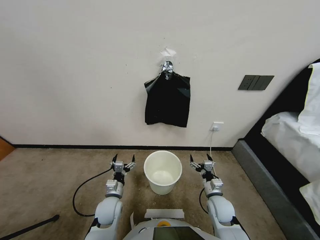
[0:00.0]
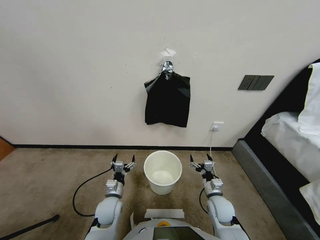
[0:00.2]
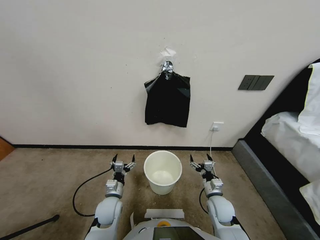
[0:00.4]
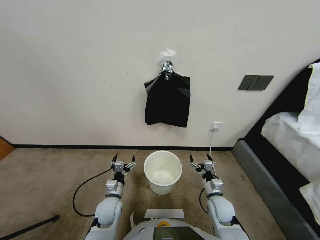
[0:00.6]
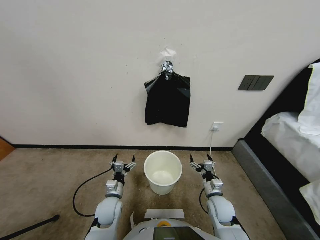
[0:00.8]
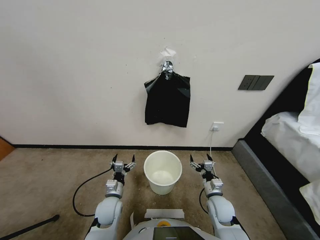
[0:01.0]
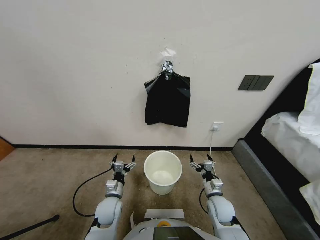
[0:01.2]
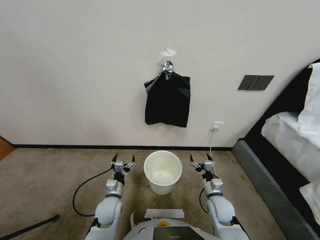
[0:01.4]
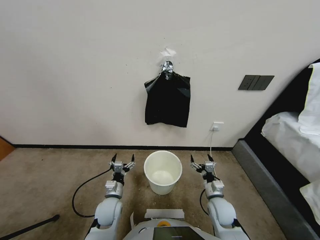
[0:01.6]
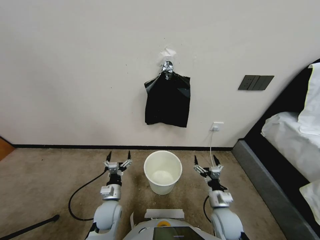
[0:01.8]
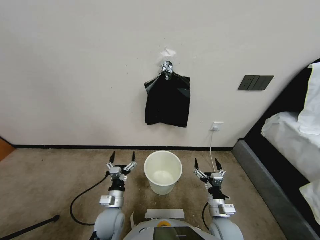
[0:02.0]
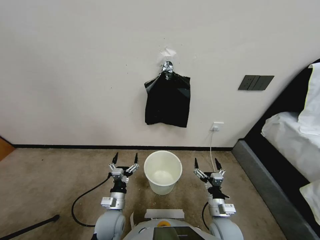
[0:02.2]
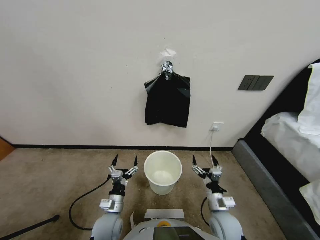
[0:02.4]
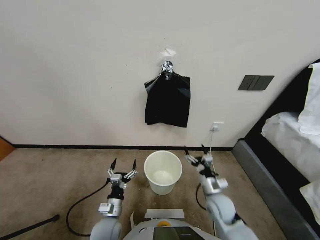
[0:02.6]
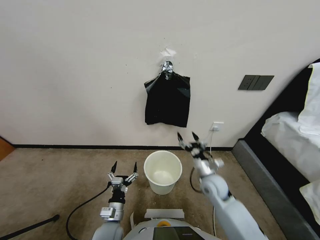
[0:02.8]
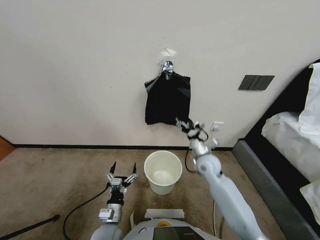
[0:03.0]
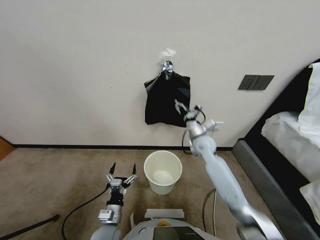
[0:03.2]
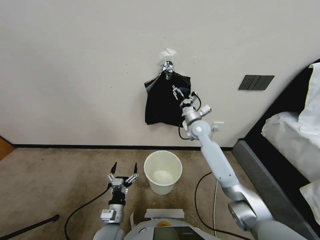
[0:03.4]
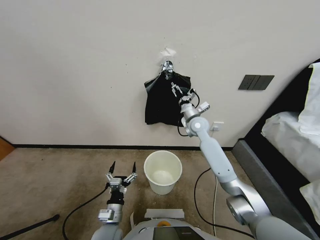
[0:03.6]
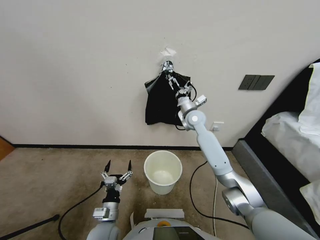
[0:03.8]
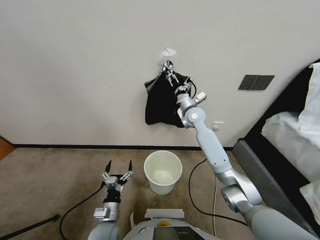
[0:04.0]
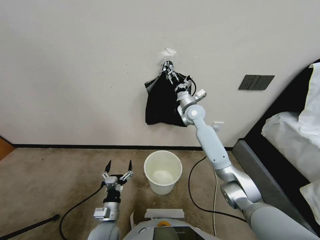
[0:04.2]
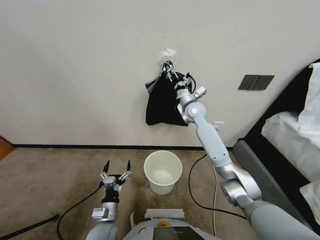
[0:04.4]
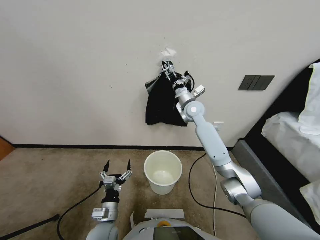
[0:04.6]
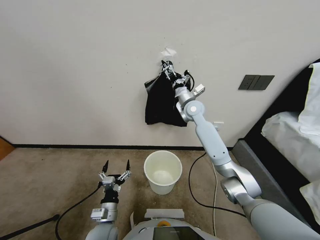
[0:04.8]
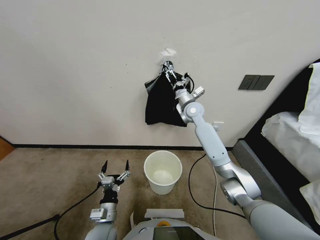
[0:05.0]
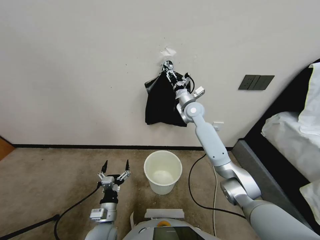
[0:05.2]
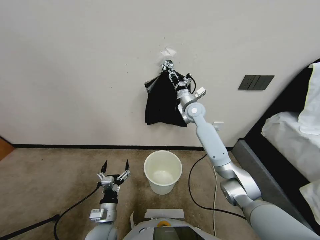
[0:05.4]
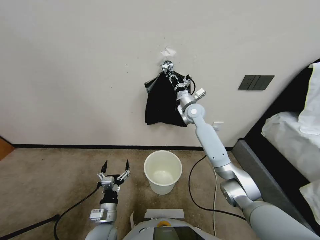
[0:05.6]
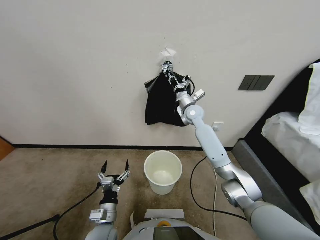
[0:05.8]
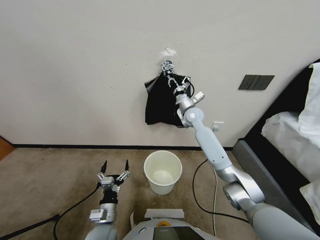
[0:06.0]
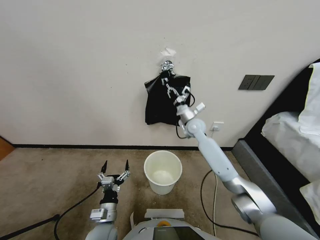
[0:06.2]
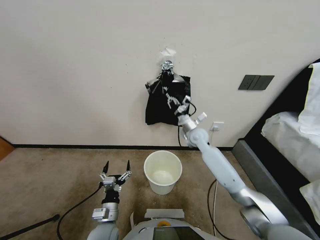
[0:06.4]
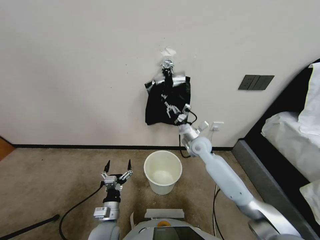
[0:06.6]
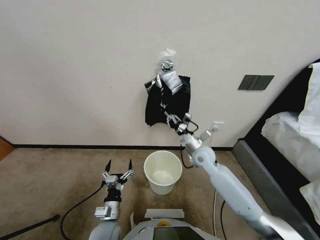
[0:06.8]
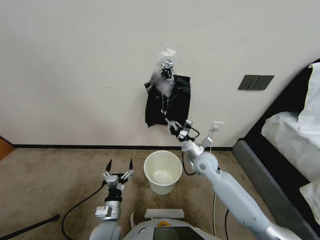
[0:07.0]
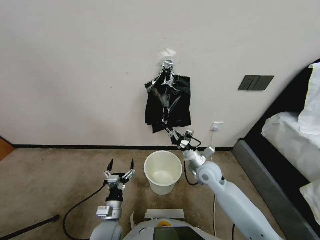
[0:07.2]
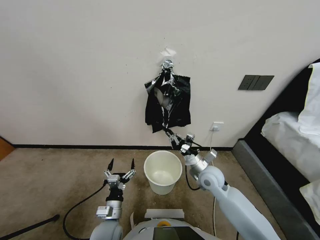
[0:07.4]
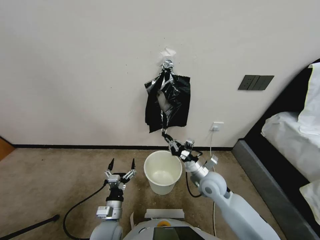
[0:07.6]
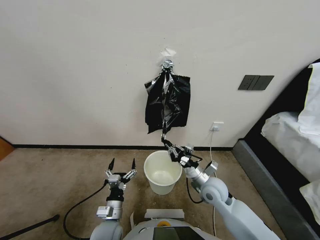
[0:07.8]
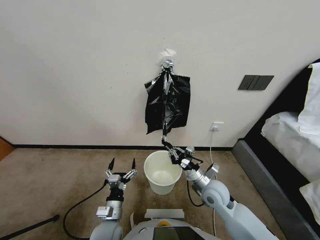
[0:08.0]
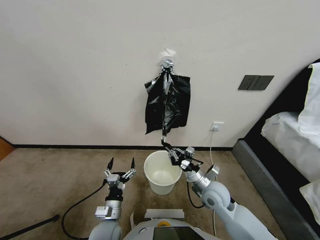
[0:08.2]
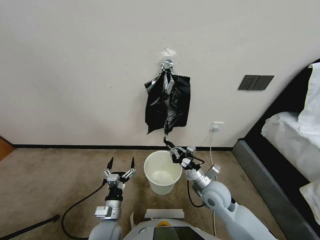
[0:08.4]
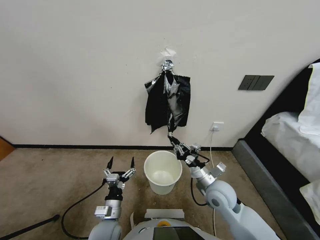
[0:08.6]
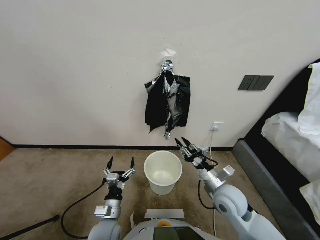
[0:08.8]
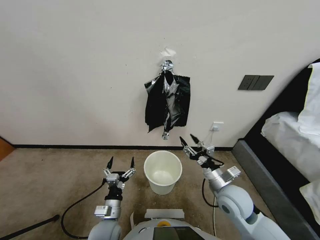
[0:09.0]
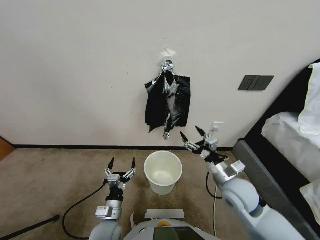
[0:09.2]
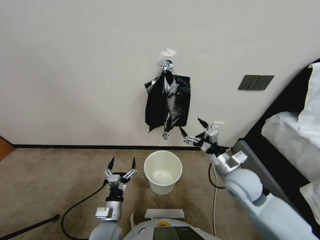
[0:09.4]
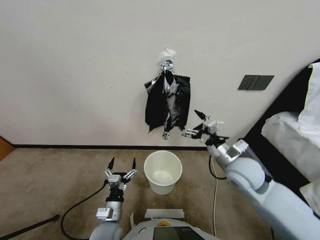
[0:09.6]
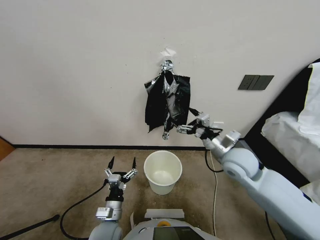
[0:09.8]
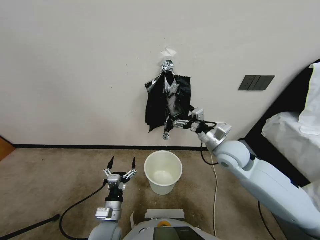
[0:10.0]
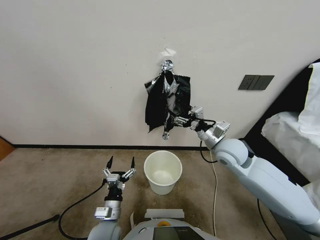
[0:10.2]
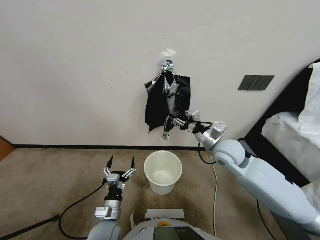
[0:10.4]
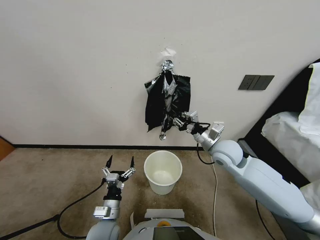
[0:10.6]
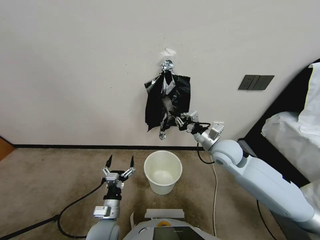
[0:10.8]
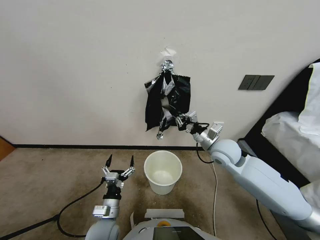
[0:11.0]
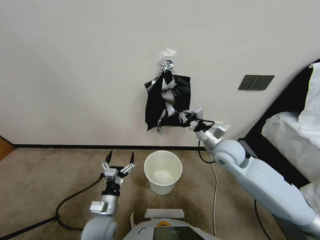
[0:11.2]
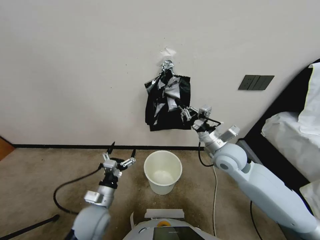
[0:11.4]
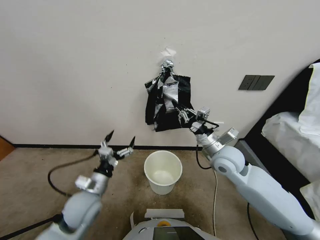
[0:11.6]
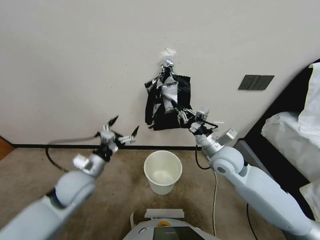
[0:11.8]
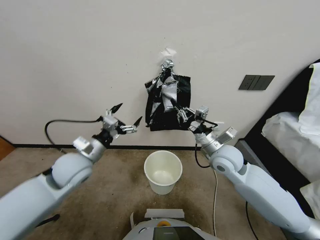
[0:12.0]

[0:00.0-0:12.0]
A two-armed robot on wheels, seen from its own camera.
Task of the whole recording: Place a trash bag onto the trash bin.
0:01.6 to 0:03.0: The right gripper shifts about 25 cm forward and upward; the left gripper is displaced backward by about 10 cm.
0:03.0 to 0:04.4: The right gripper travels forward and upward by approximately 20 cm.
0:04.4 to 0:06.0: The right gripper heads downward, covering roughly 5 cm, and closes up.
0:06.0 to 0:07.6: The right gripper heads backward and downward, covering some 30 cm.
0:07.6 to 0:09.0: The right gripper moves upward, some 5 cm, and opens its fingers.
0:09.0 to 0:10.4: The right gripper shifts roughly 15 cm forward and upward, and closes.
0:10.4 to 0:12.0: The left gripper is displaced upward and forward by some 30 cm. The right gripper closes up.

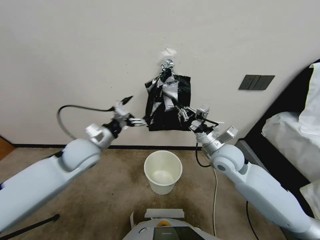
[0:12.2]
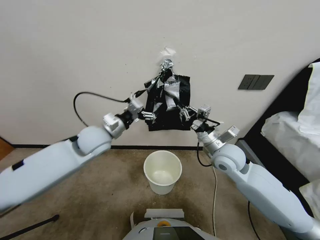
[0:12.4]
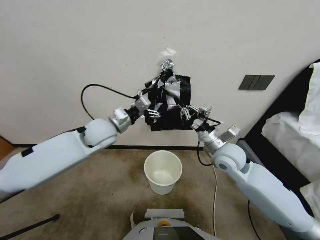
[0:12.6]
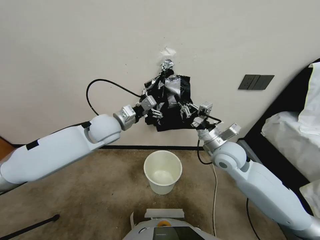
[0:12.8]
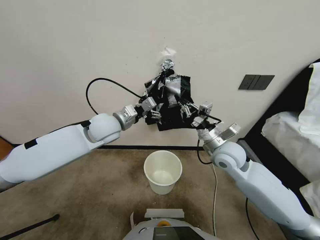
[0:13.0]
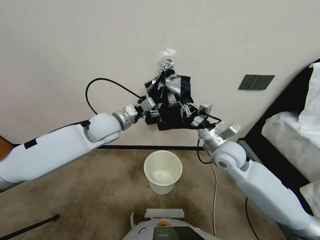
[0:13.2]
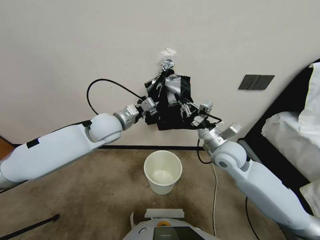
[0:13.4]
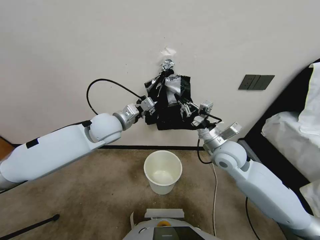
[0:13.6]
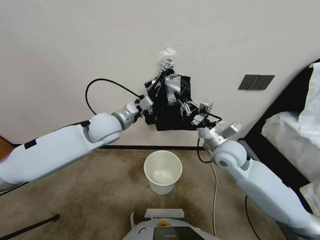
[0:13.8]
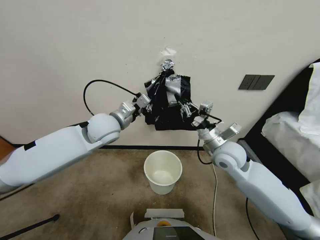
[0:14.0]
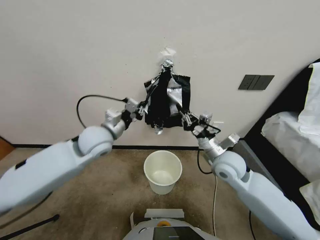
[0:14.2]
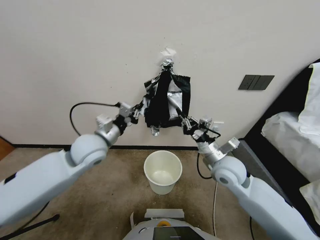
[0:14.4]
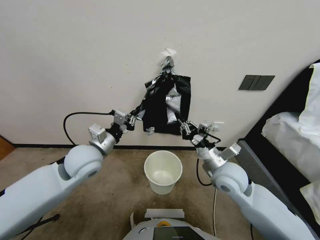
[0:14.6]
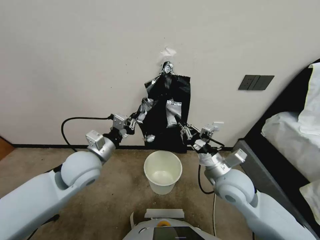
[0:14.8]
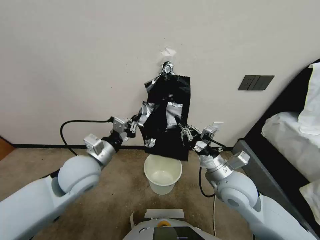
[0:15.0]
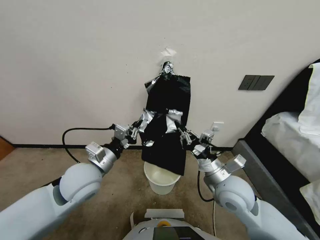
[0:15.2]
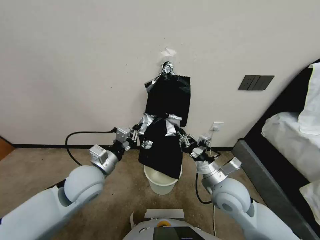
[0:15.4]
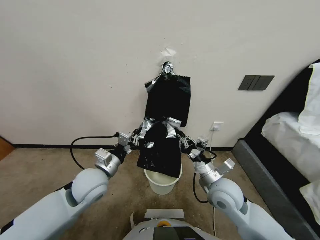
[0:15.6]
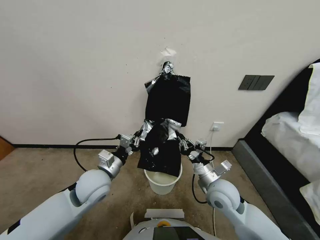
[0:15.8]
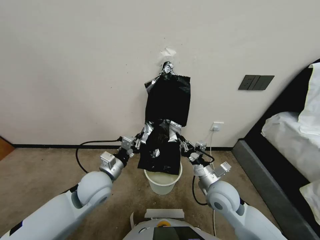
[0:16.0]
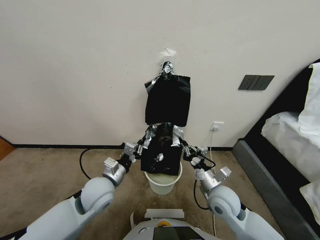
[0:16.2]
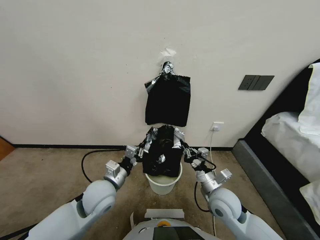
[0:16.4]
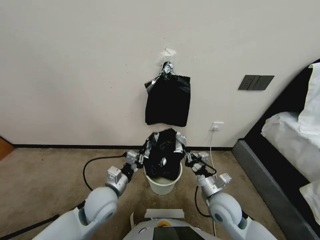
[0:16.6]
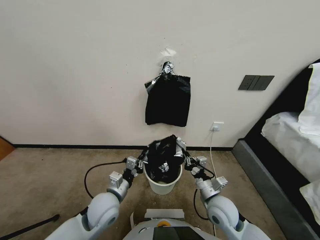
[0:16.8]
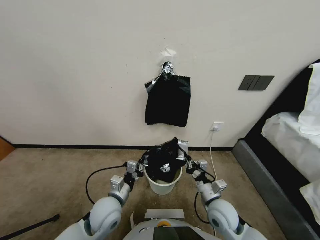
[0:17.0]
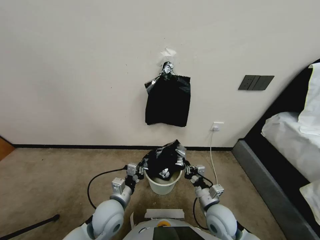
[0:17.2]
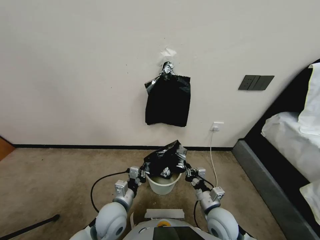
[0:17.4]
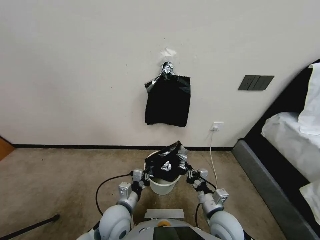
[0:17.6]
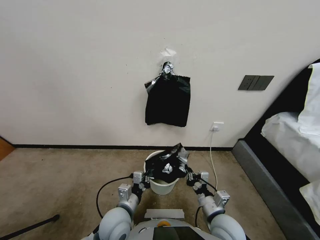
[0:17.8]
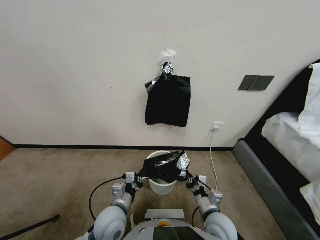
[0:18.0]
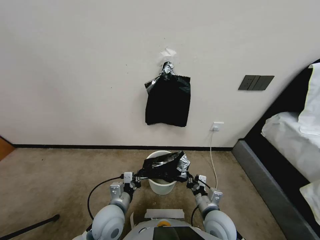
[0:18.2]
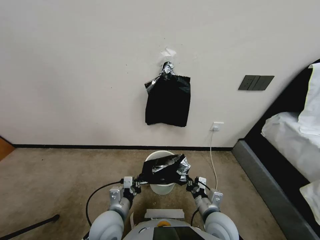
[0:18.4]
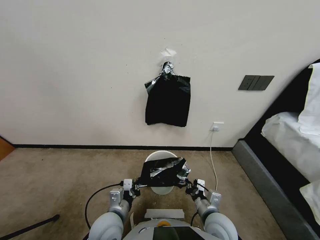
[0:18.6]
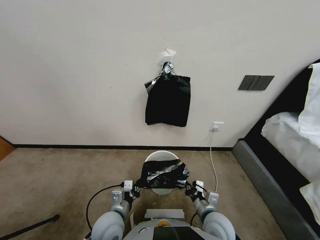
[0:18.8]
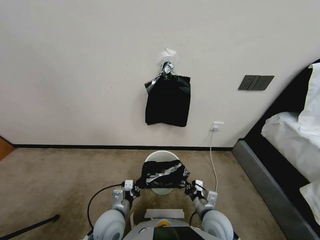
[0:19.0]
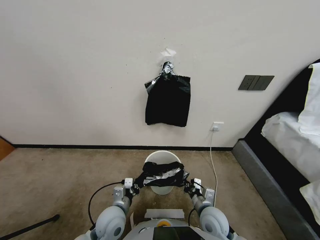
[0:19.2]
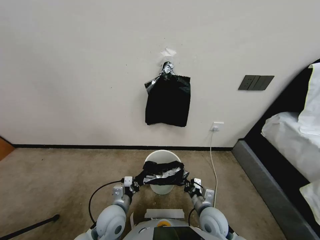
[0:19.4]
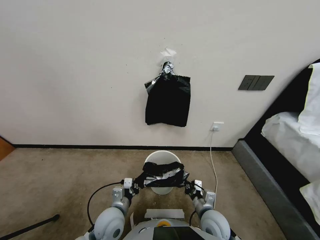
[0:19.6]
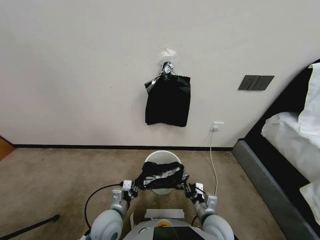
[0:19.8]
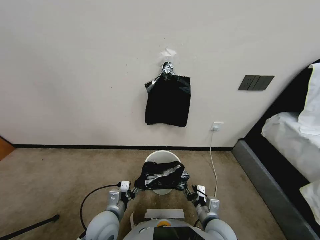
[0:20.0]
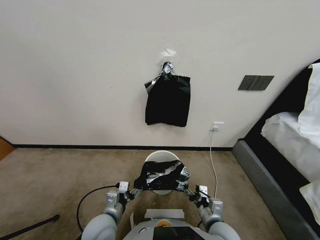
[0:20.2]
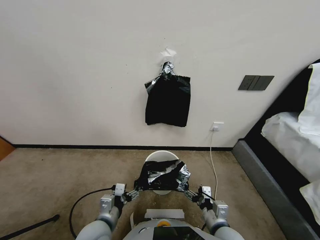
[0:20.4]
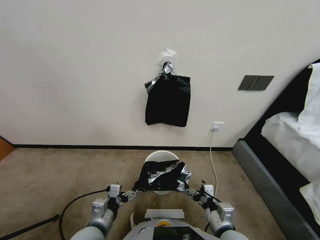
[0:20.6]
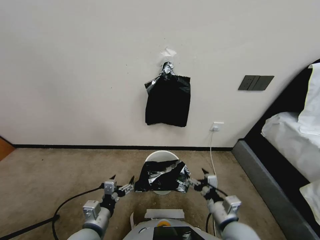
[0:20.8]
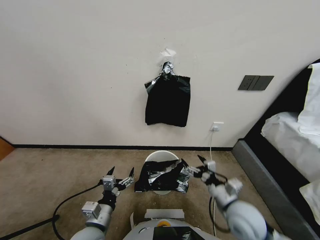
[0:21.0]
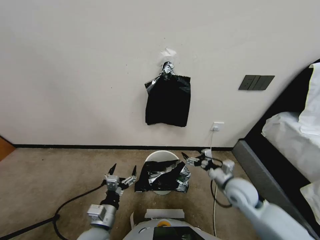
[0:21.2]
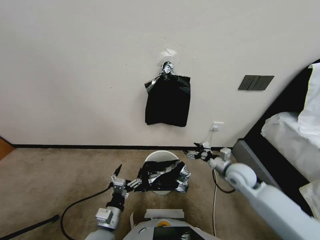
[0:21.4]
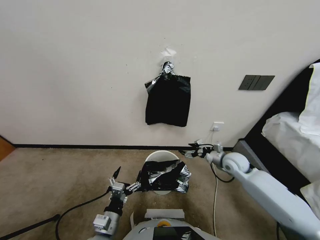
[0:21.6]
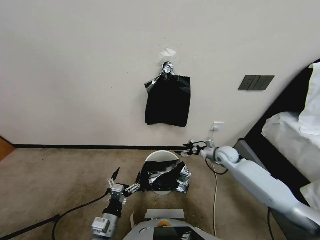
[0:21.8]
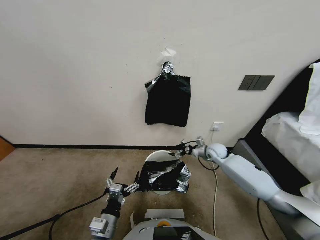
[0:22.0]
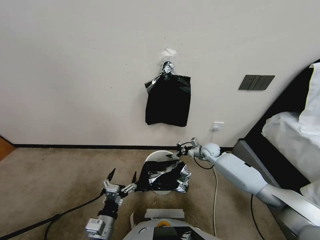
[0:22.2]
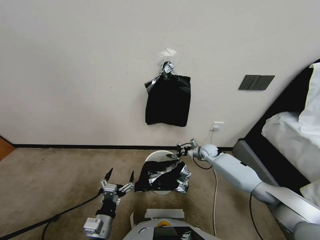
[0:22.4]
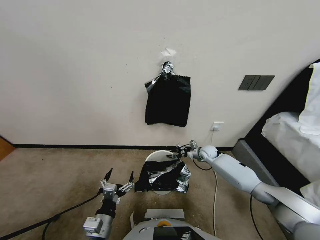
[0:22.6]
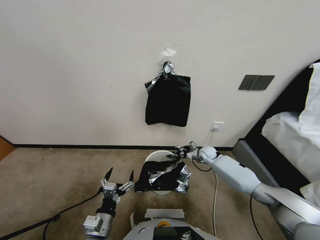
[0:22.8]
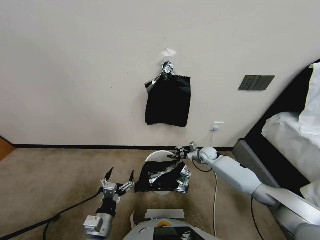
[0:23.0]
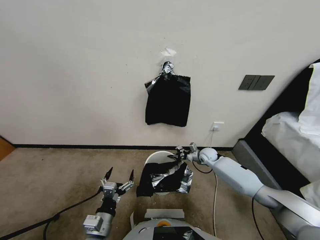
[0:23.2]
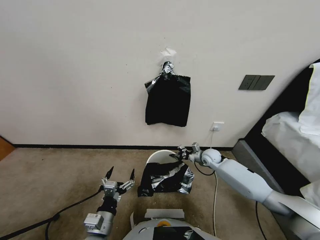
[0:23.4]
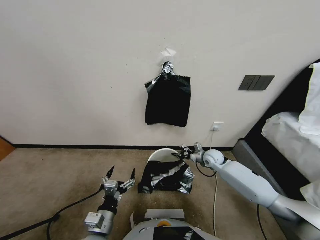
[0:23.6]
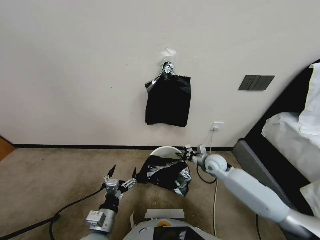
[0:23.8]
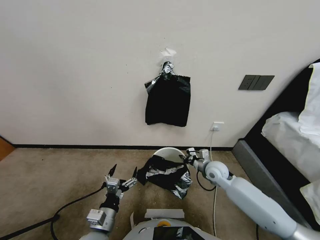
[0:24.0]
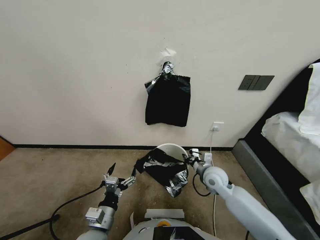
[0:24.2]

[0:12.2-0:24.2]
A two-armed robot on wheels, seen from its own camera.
Task of the whole recording: Place a trash bag onto the trash bin.
0:12.2 to 0:13.8: The left gripper changes place by some 5 cm, and closes its fingers.
0:13.8 to 0:15.2: The two grippers go approximately 15 cm backward and downward.
0:15.2 to 0:16.6: Both grippers travel together downward, some 10 cm.
0:16.6 to 0:18.2: The left gripper travels backward by about 5 cm, while the right gripper moves approximately 5 cm.
0:18.2 to 0:19.8: The left gripper opens up. The right gripper opens.
0:19.8 to 0:21.2: The right gripper shifts roughly 20 cm forward, to the right and upward, and opens. Meanwhile the left gripper opens its fingers.
0:21.2 to 0:22.6: The right gripper travels forward and downward by about 20 cm, and closes.
0:22.6 to 0:24.2: The right gripper travels backward and upward by approximately 20 cm.
